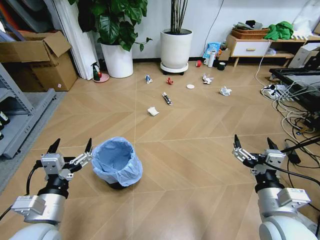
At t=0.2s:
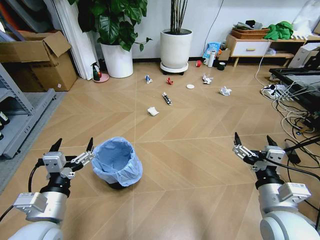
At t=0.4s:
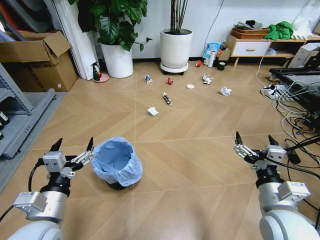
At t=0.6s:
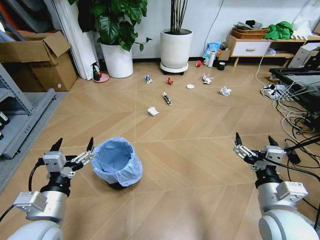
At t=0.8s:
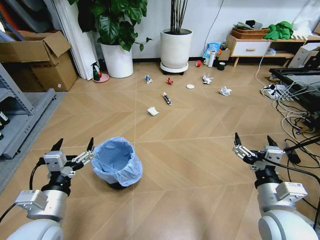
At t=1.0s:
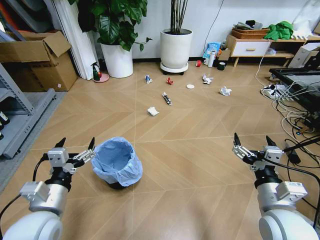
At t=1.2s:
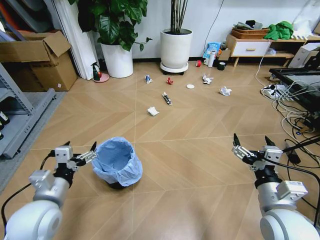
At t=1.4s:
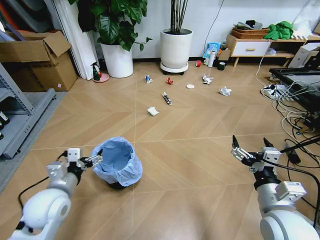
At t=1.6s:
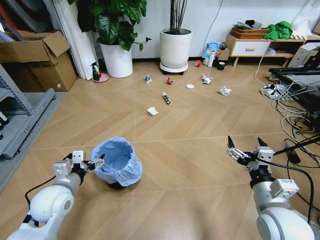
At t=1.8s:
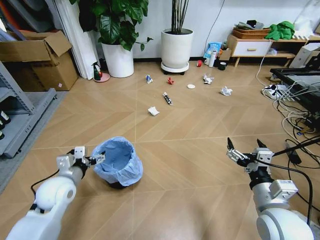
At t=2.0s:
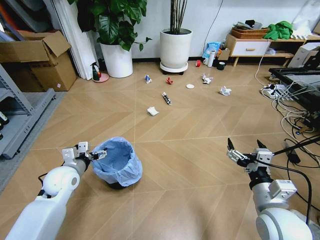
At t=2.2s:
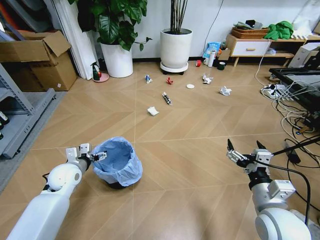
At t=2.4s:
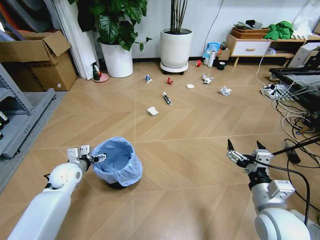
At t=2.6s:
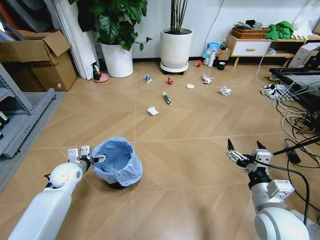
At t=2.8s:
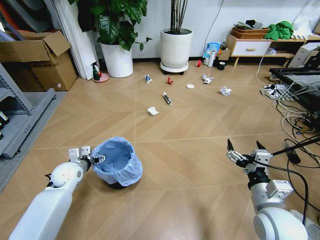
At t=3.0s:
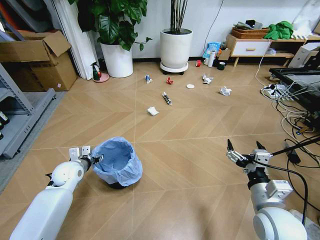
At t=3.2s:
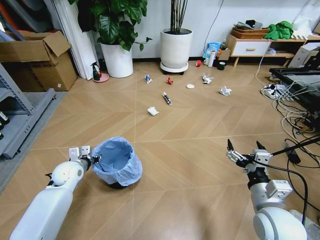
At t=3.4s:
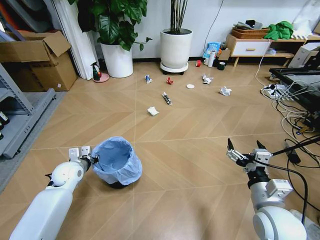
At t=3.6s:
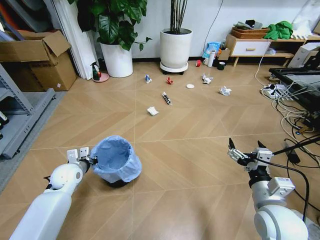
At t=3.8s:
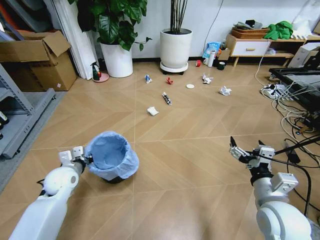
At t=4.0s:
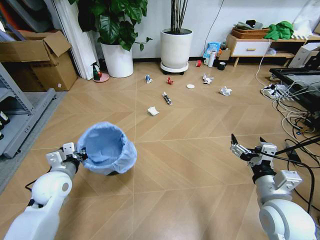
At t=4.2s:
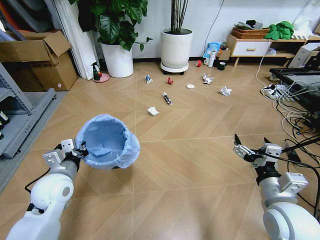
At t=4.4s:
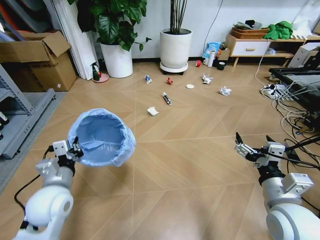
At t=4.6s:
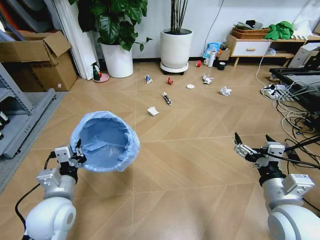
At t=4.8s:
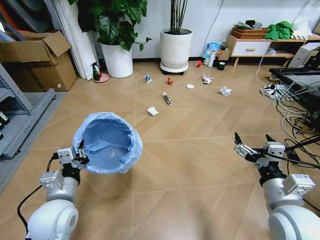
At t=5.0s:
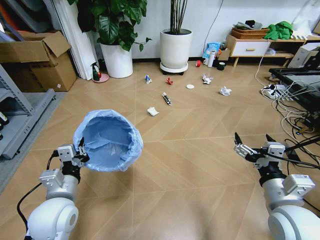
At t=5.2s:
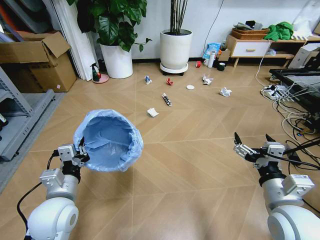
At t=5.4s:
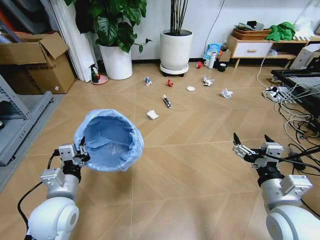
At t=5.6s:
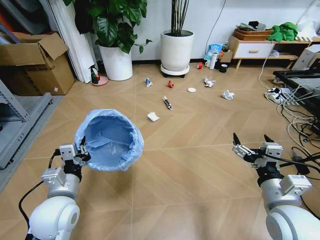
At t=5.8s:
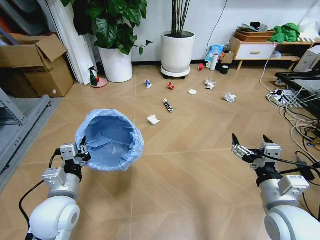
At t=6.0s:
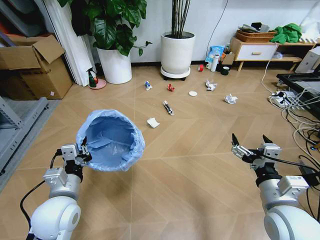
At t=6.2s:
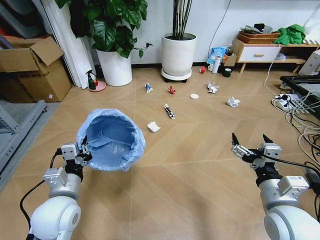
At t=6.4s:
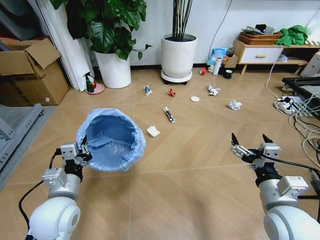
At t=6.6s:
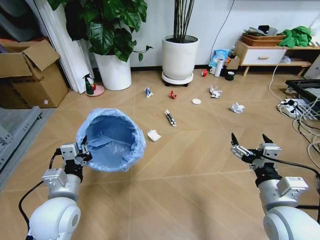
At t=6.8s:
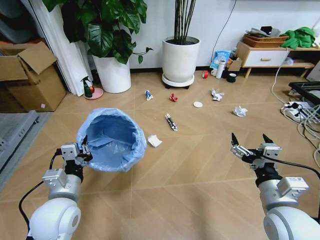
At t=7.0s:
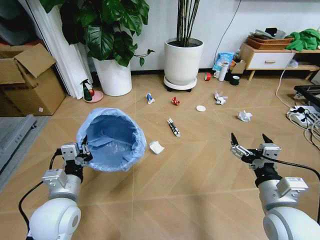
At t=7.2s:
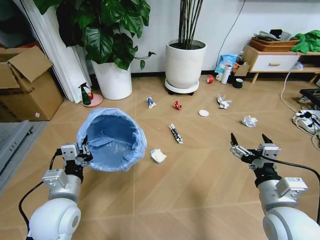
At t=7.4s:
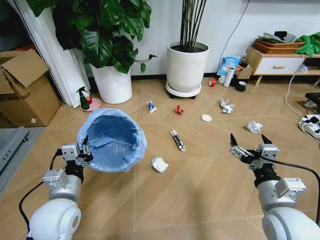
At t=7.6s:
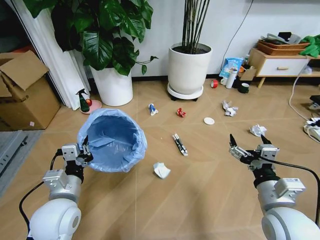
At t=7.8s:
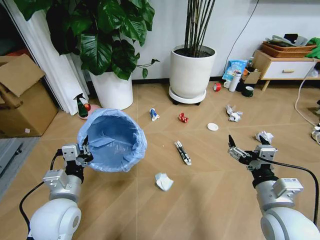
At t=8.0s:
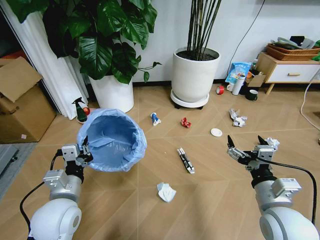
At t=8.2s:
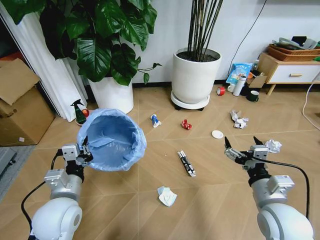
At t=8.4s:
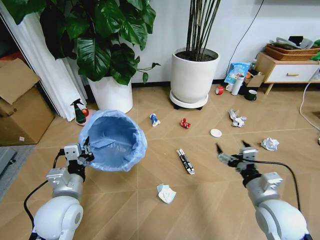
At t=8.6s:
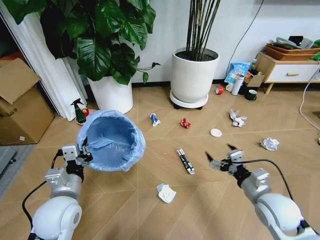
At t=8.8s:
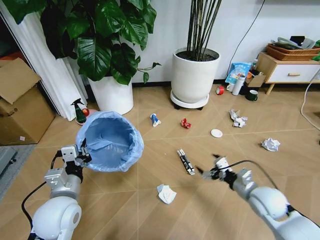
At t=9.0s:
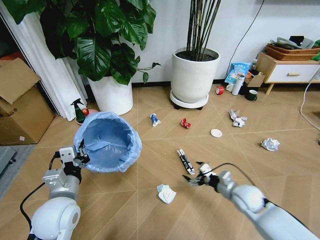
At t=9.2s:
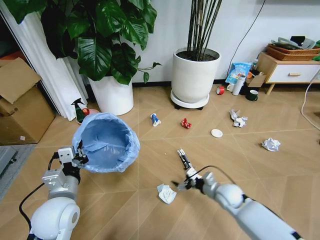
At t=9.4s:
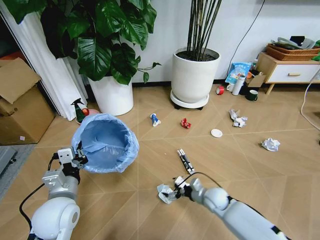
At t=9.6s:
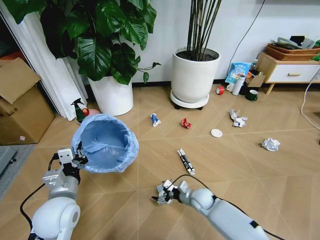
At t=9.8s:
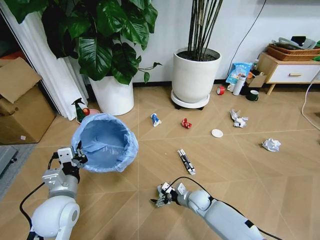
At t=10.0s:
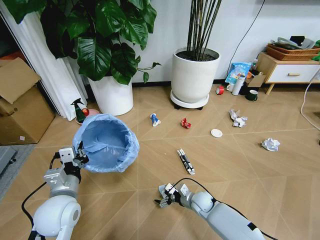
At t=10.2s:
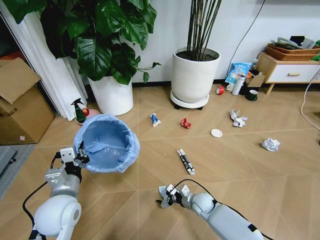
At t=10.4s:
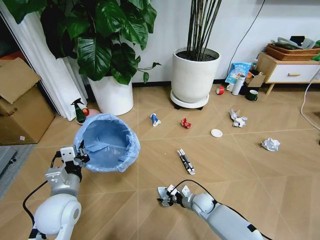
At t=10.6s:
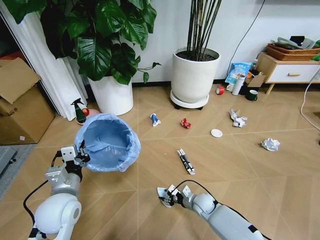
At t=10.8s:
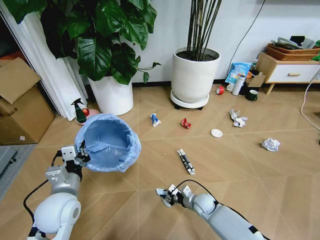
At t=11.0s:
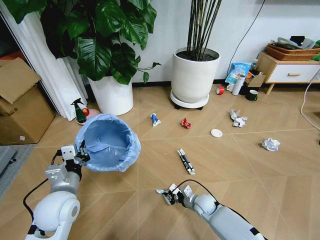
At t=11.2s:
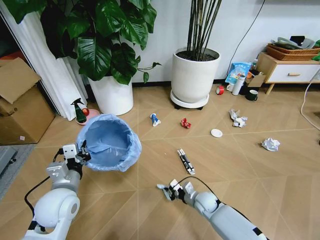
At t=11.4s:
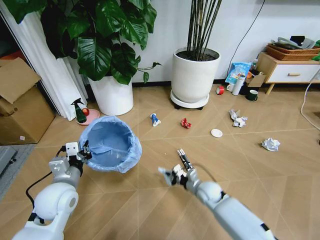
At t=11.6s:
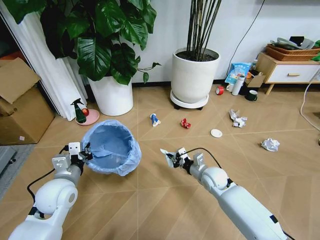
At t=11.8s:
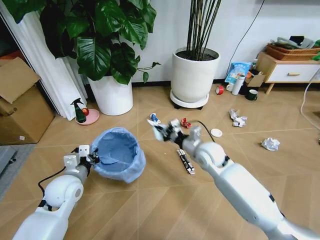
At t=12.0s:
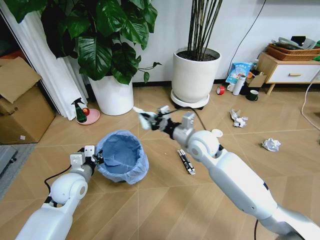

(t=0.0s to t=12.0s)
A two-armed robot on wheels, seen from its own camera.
Task of the whole recording: Pick up the trash bin and place the garbage on the floor into it.
t=1.6s - t=3.0s: The left gripper moves forward and downward, approximately 15 cm, and closes its fingers.
t=3.0s - t=4.4s: The left gripper shifts roughly 15 cm backward and upward, and closes up.
t=7.6s - t=9.0s: The right gripper is displaced downward and forward by roughly 20 cm.
t=9.0s - t=10.4s: The right gripper heads downward and to the left, covering about 20 cm.
t=10.4s - t=12.0s: The right gripper heads upward, covering some 30 cm, and closes up. Meanwhile the left gripper goes roughly 10 cm forward.

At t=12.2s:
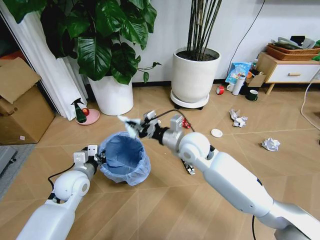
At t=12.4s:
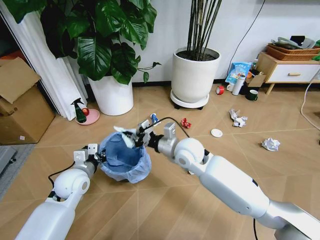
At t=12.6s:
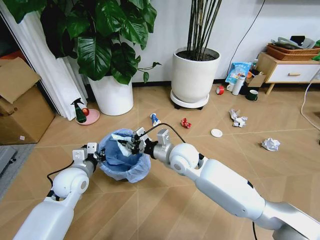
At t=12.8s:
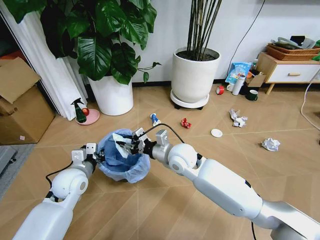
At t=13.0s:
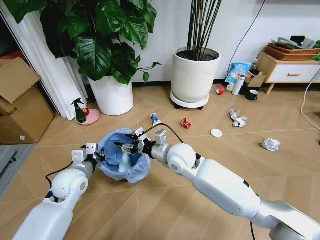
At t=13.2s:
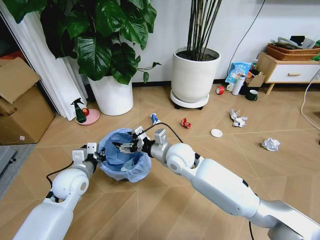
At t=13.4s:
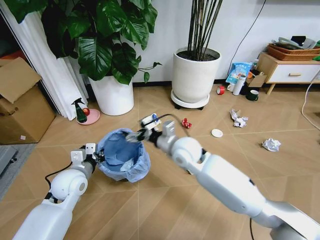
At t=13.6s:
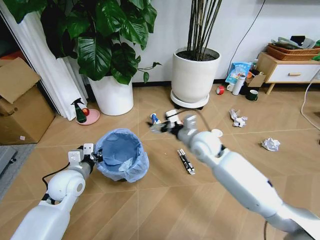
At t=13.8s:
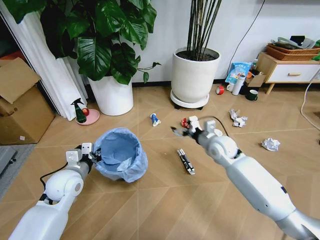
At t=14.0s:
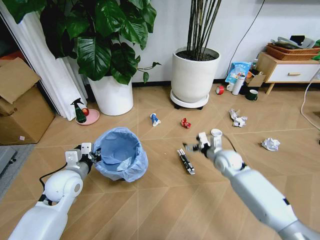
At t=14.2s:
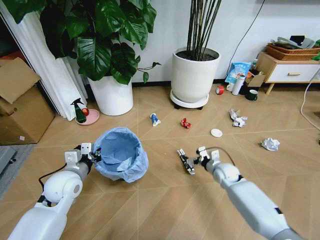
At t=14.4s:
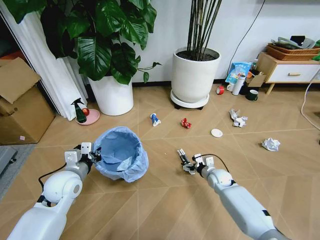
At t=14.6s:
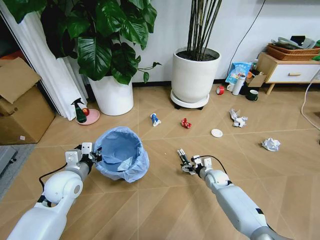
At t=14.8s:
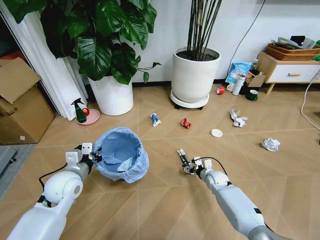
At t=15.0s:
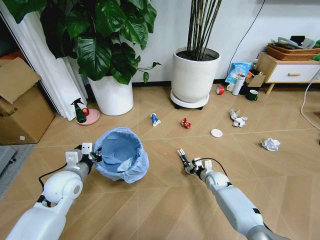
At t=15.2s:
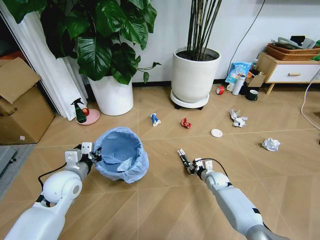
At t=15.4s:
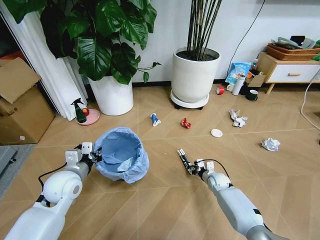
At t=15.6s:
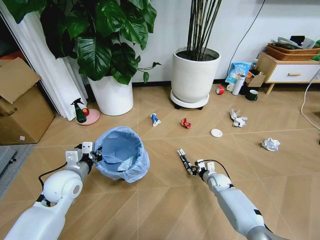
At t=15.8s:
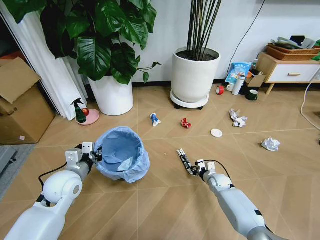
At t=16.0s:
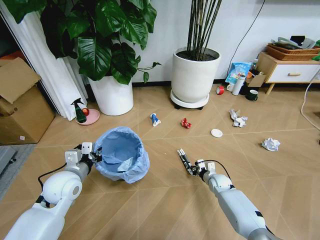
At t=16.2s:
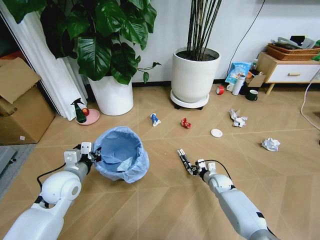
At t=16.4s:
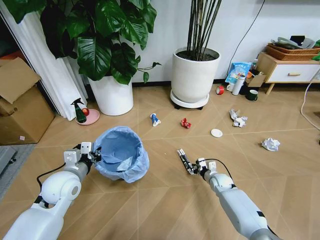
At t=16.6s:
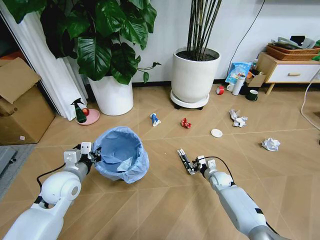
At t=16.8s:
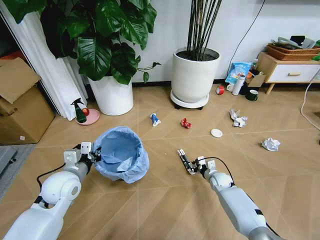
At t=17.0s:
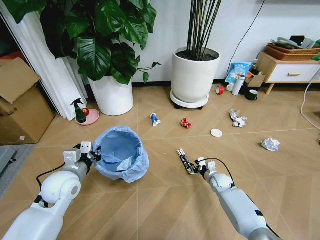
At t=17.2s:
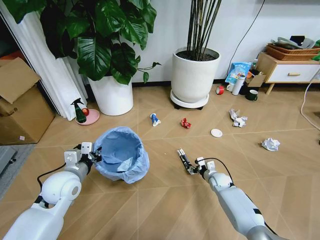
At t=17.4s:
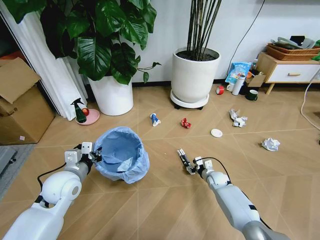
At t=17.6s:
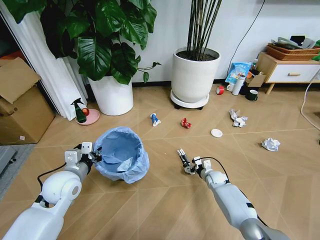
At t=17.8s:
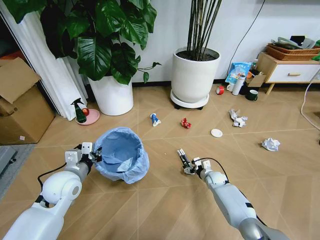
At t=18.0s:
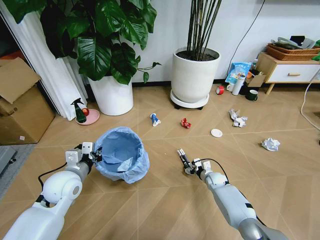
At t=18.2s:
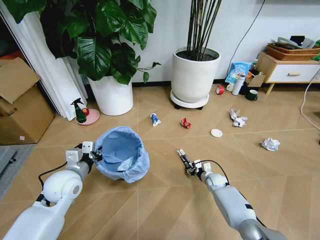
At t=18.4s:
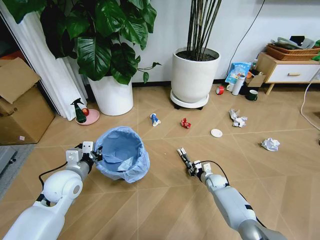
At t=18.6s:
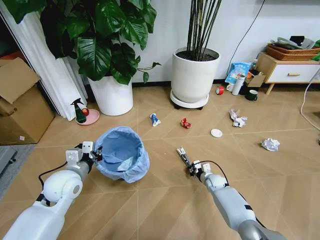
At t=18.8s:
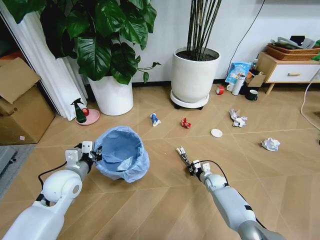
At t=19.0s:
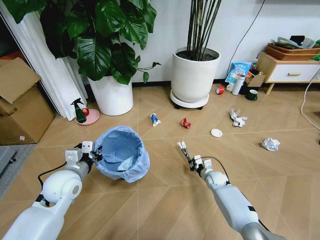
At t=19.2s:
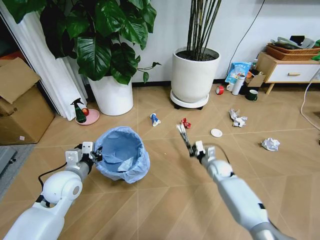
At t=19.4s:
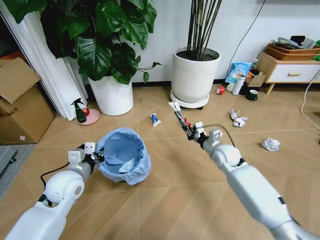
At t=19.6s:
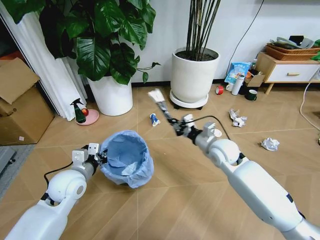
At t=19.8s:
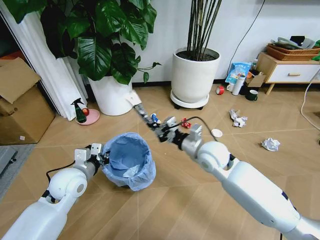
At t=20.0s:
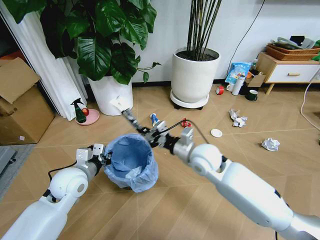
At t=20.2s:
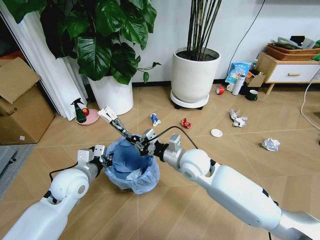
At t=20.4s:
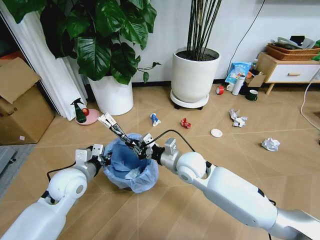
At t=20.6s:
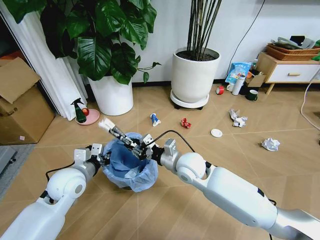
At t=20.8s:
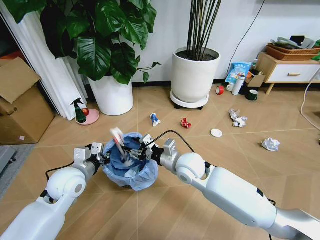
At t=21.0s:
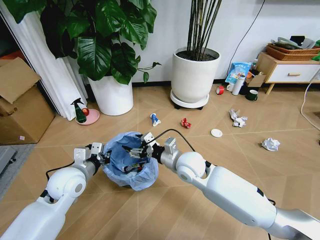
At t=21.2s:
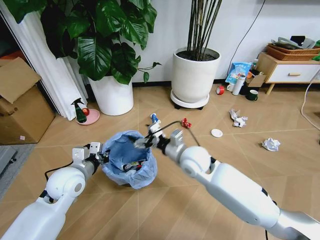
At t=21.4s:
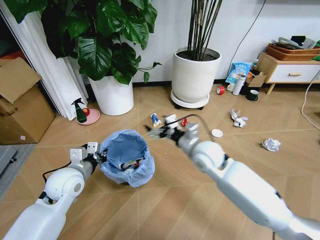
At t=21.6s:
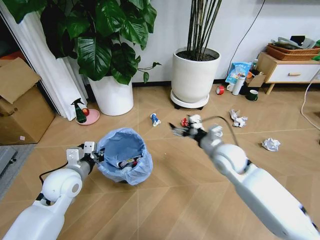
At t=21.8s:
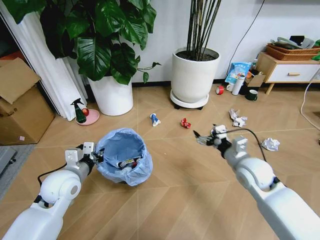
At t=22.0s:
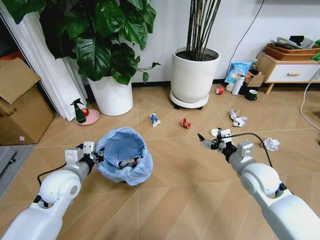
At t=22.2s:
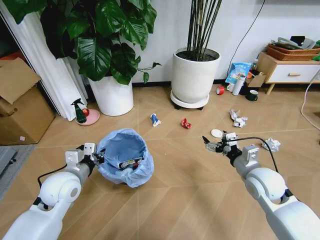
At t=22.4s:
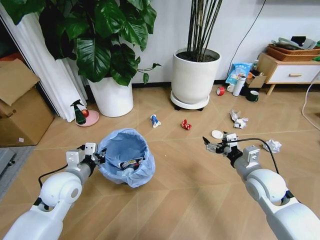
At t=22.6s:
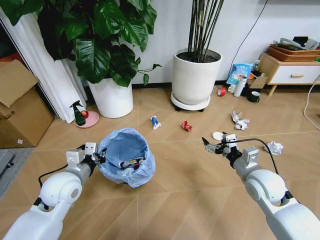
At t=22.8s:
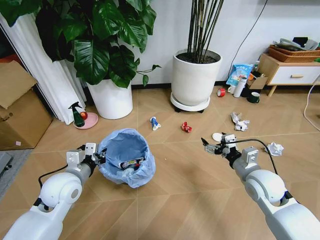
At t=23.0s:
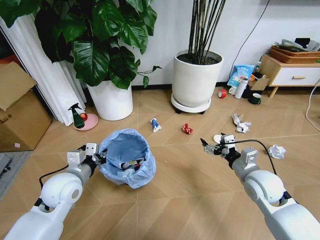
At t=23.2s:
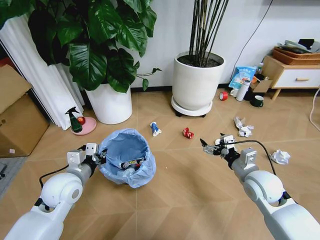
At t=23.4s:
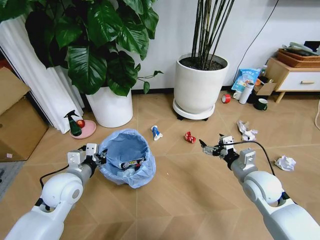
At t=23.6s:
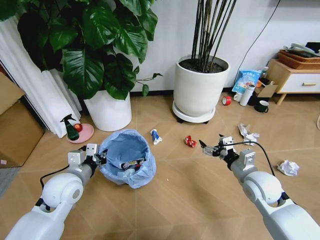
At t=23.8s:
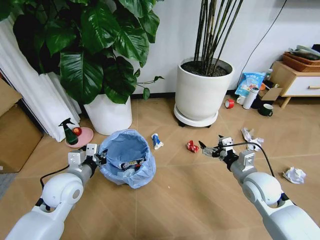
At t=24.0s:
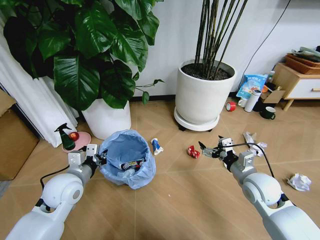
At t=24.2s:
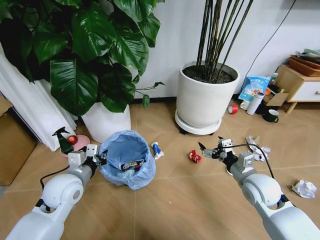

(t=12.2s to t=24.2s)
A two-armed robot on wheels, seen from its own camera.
Task of the whole recording: Pick up the trash bin and place the garbage on the floor into it.
t=12.2s - t=13.8s: The right gripper is displaced to the right and downward by about 15 cm, and opens up.
t=13.8s - t=15.2s: The right gripper is displaced downward by approximately 25 cm, and closes.
t=15.2s - t=16.6s: The right gripper closes.
t=16.6s - t=18.2s: The right gripper opens.
t=18.2s - t=19.8s: The right gripper goes some 30 cm upward, and closes.
t=19.8s - t=21.2s: The right gripper travels to the left by approximately 5 cm, and opens up.
t=21.2s - t=22.6s: The right gripper shifts some 20 cm to the right.
